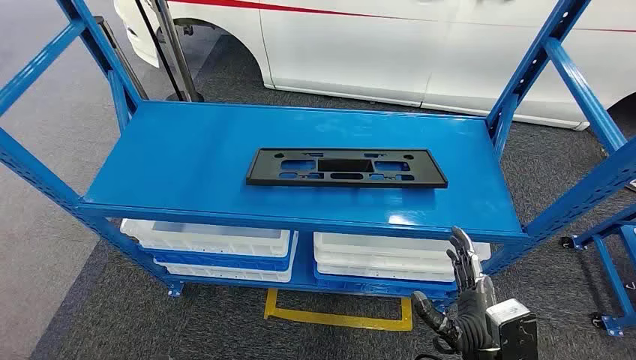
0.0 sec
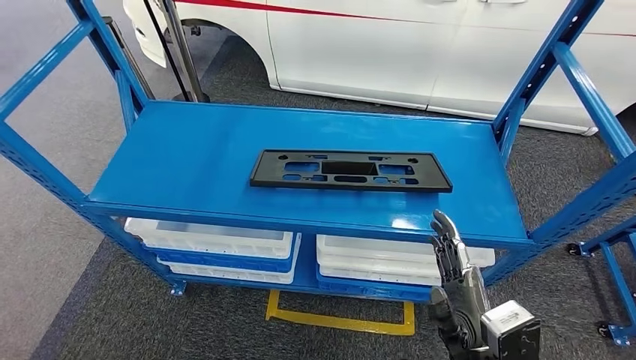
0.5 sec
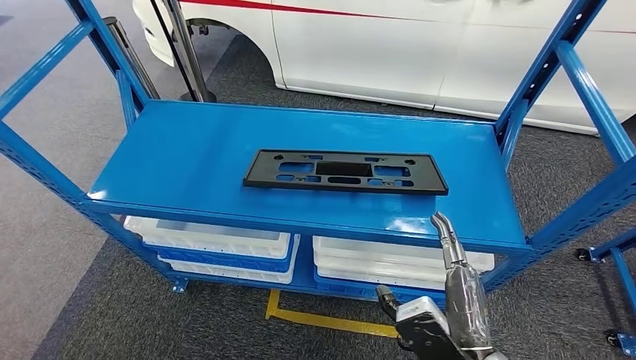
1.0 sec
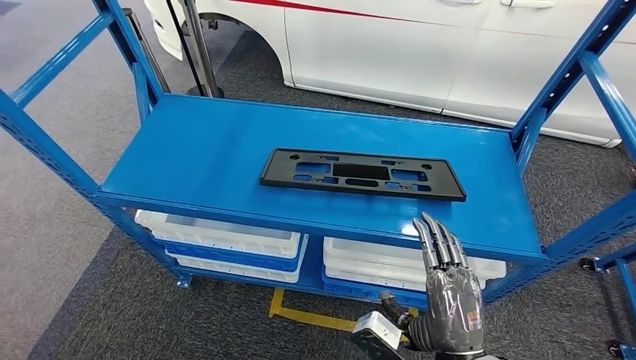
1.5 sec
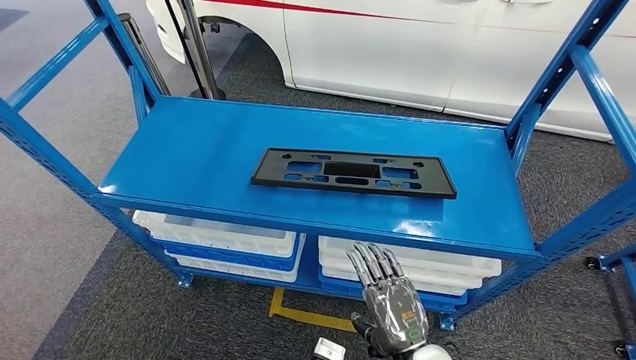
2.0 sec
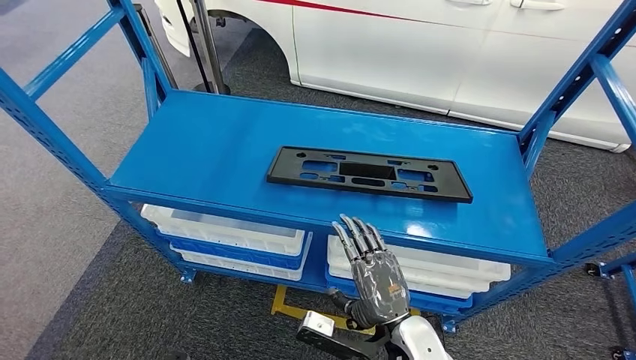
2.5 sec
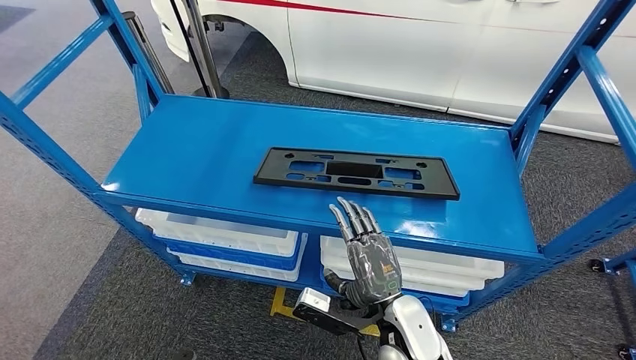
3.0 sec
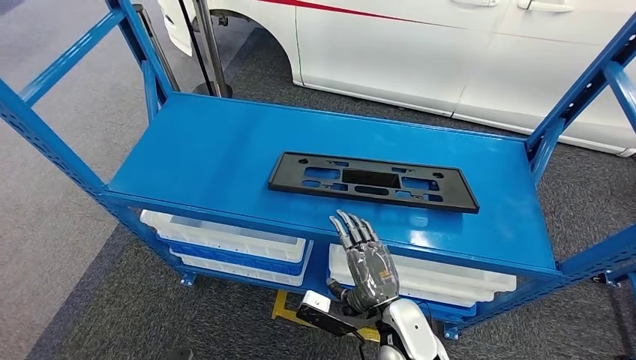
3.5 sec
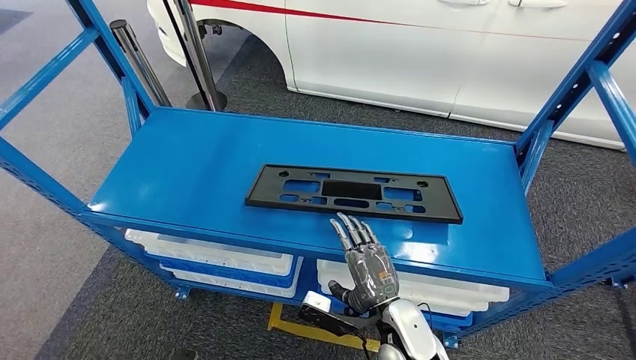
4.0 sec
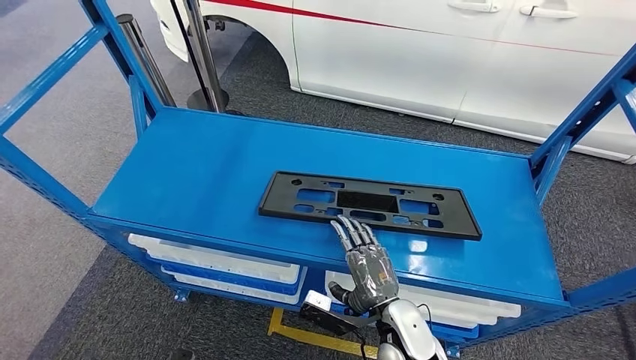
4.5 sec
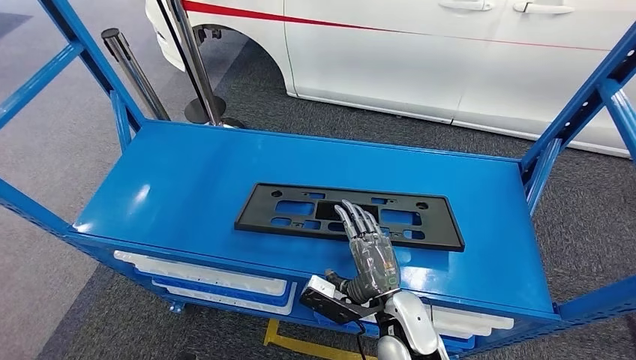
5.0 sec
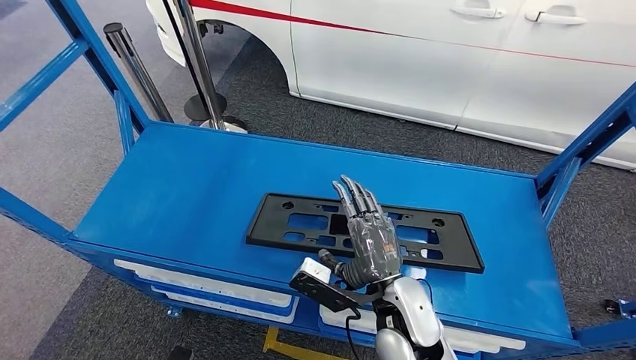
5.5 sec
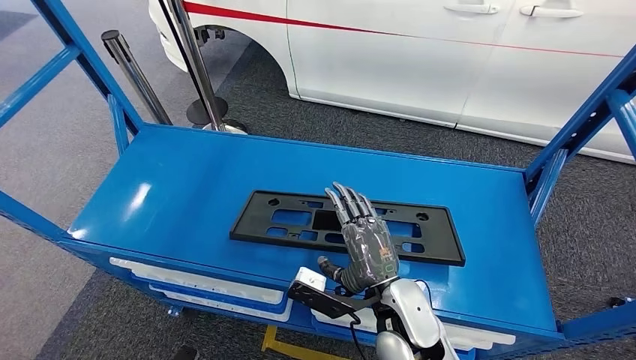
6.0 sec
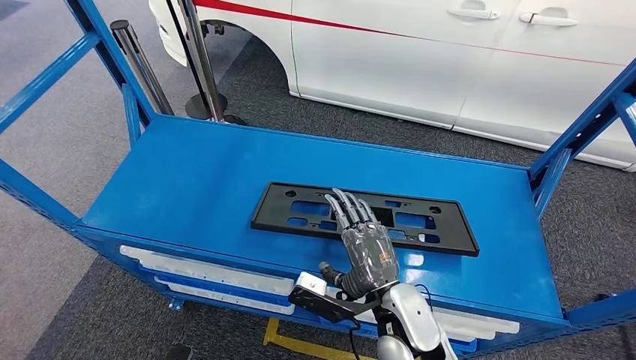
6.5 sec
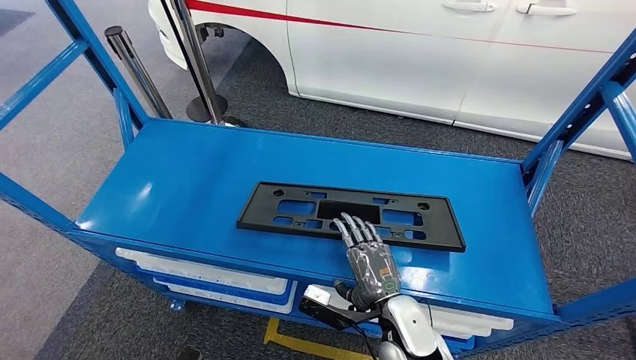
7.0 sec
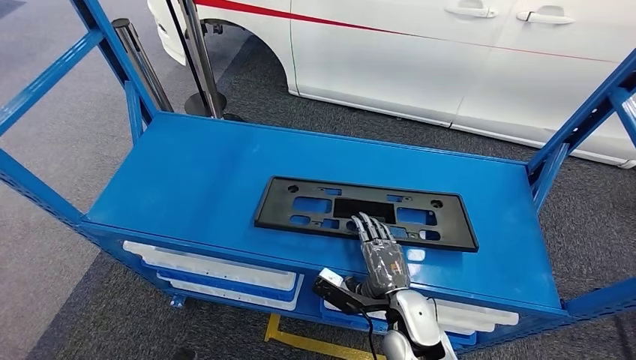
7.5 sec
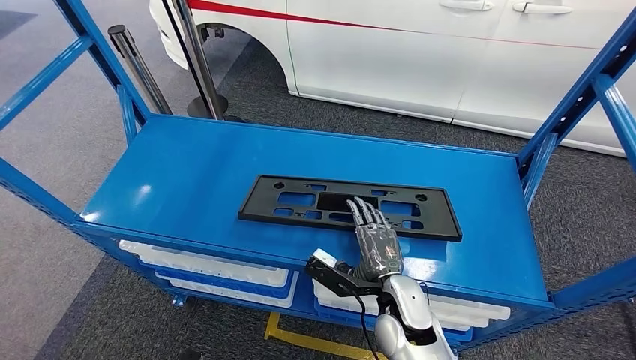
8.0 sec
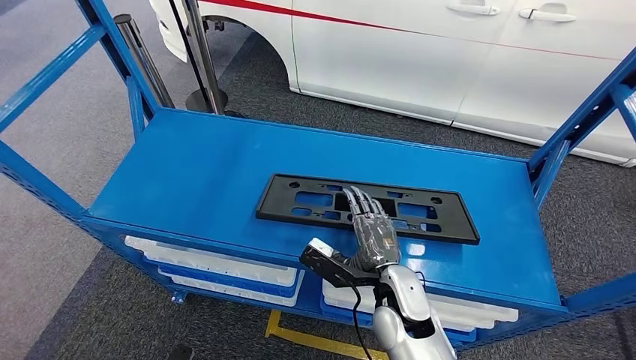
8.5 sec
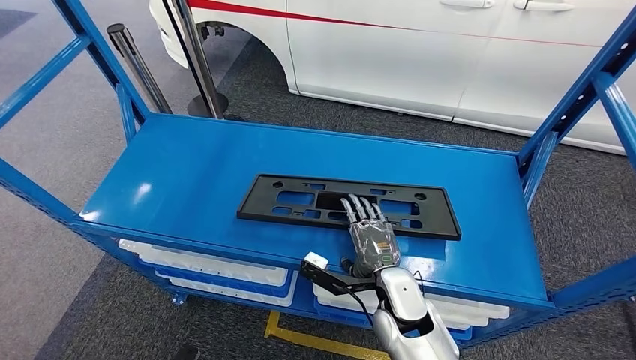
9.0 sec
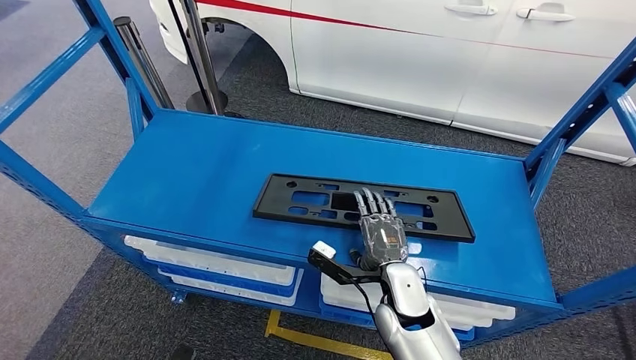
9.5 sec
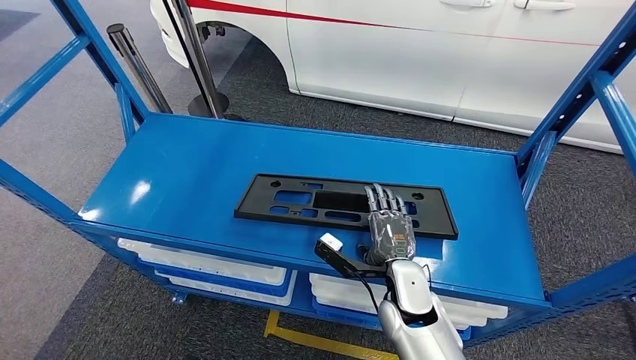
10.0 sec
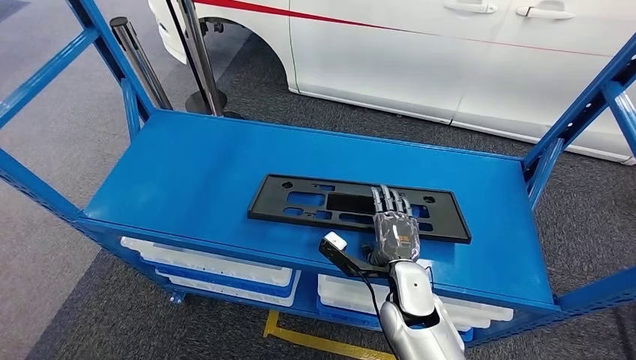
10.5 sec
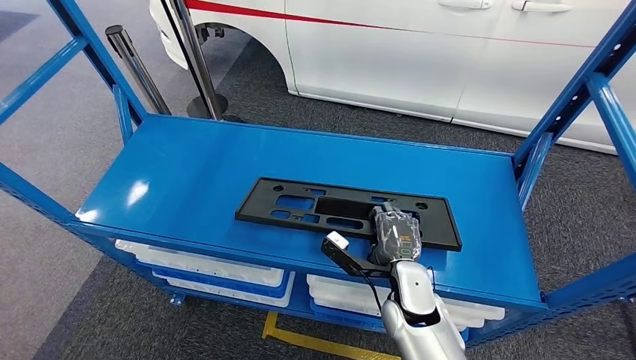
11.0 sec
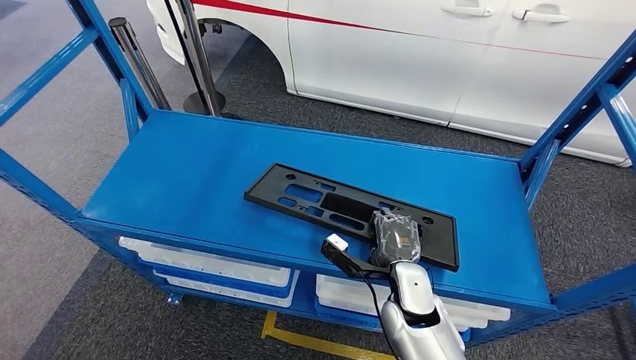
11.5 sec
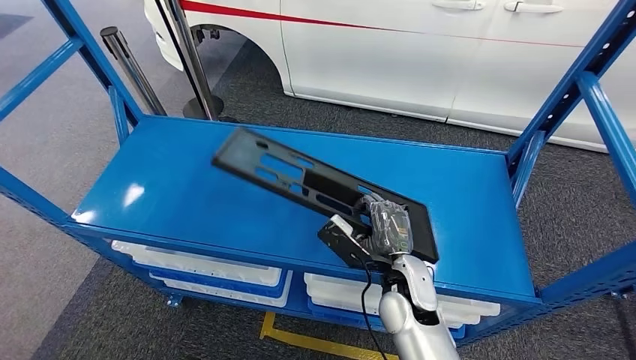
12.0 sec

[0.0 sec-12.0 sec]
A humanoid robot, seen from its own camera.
8.0 sec to 10.0 sec: The hands make only small movements.

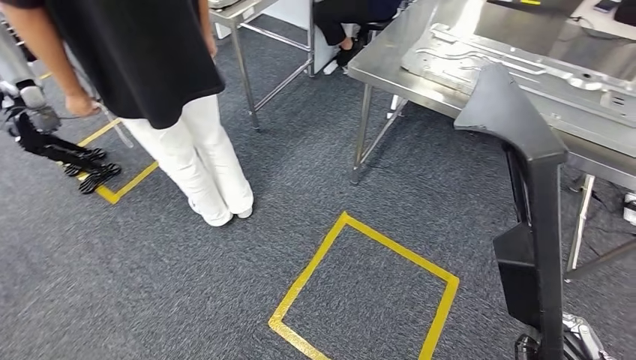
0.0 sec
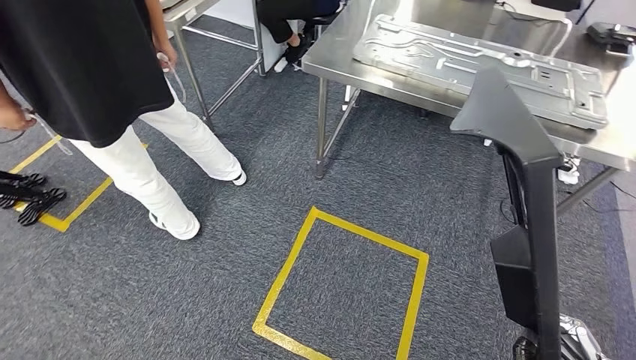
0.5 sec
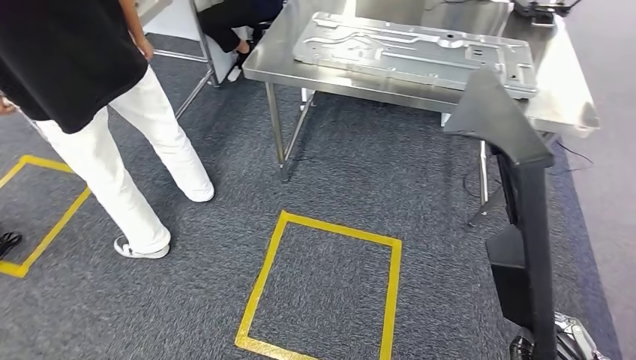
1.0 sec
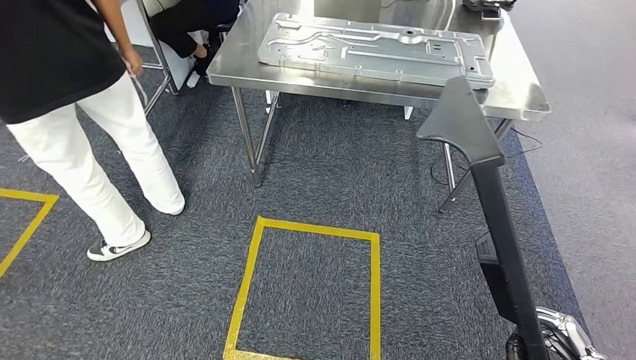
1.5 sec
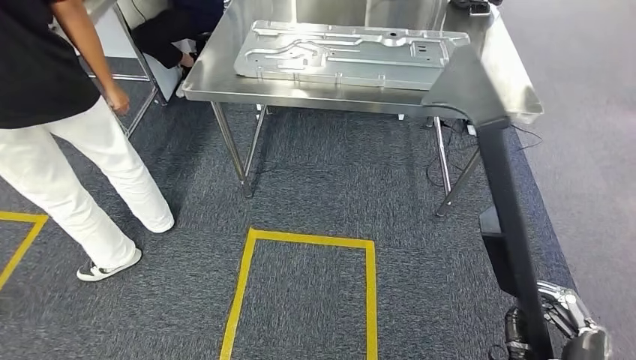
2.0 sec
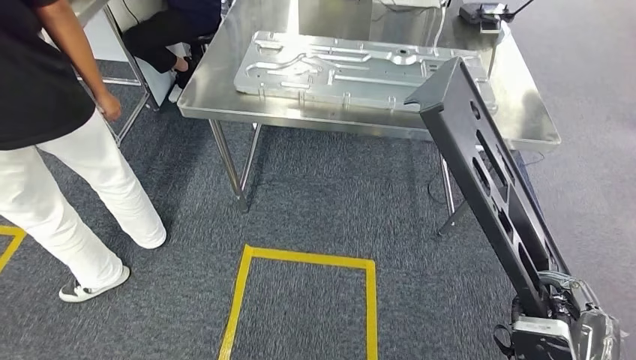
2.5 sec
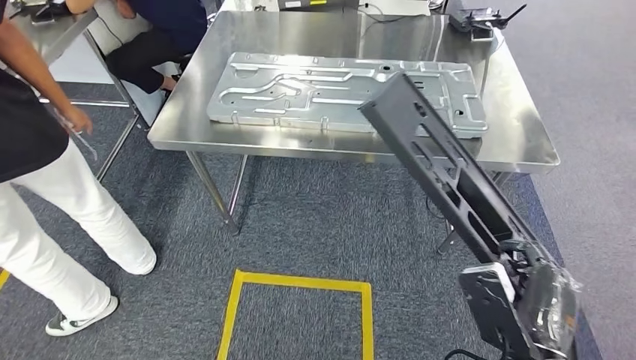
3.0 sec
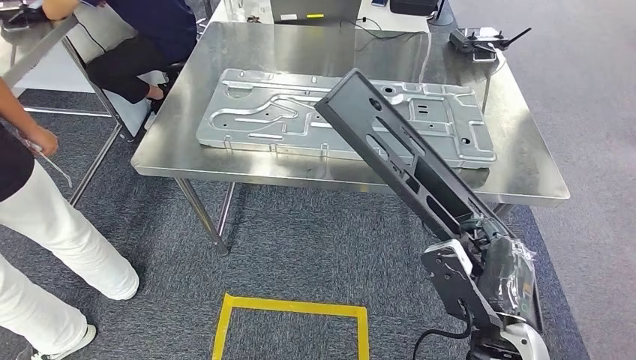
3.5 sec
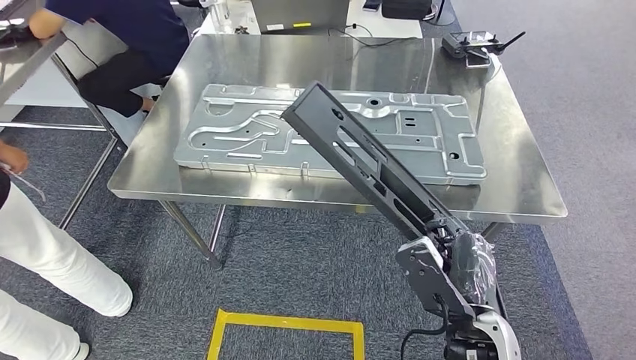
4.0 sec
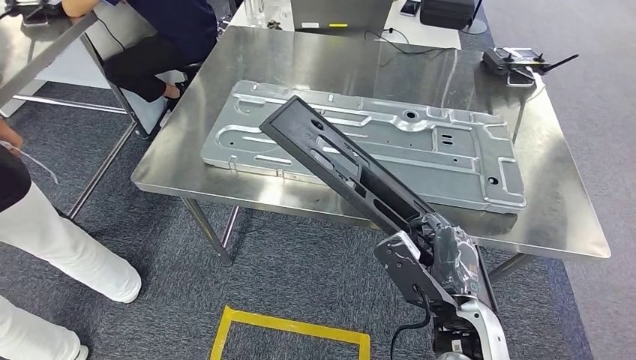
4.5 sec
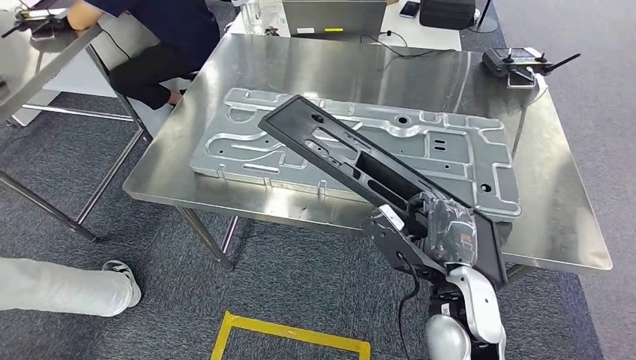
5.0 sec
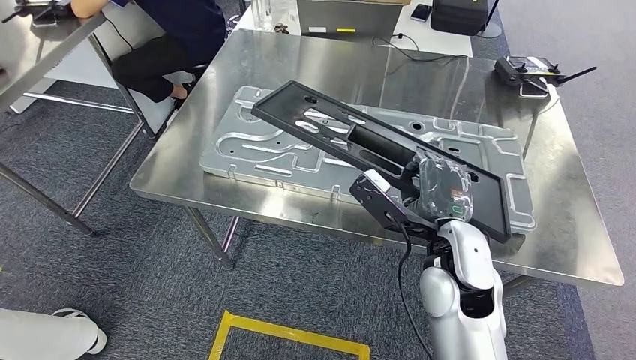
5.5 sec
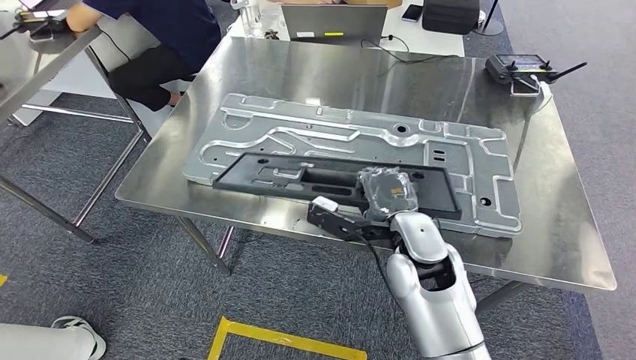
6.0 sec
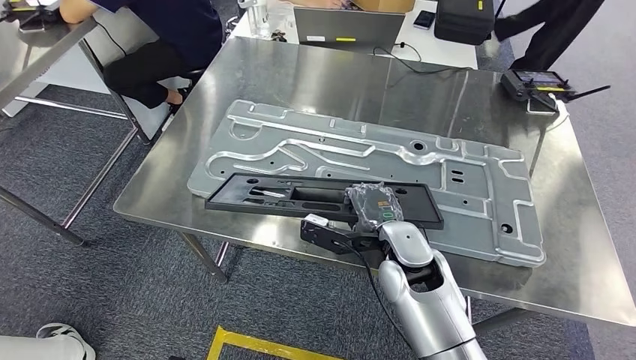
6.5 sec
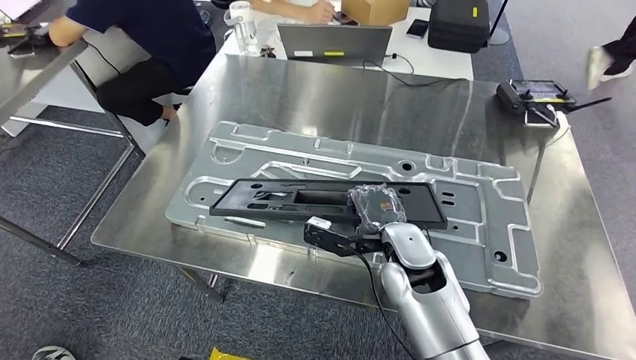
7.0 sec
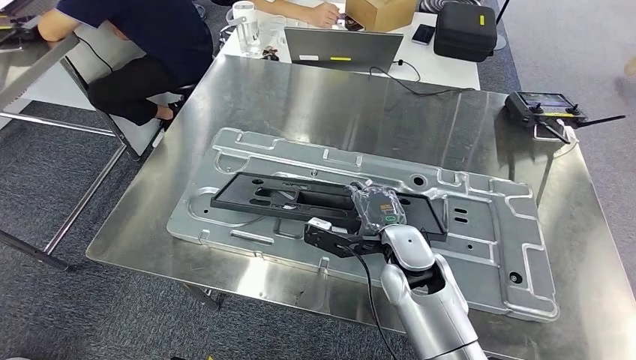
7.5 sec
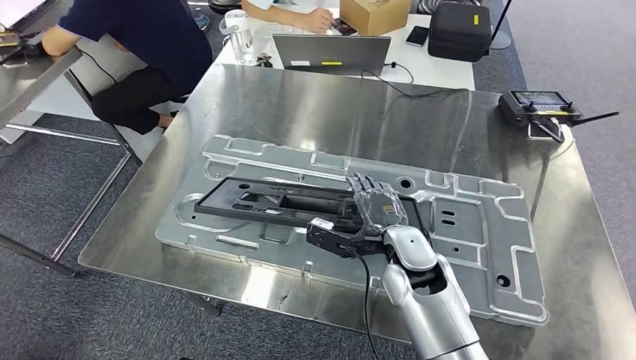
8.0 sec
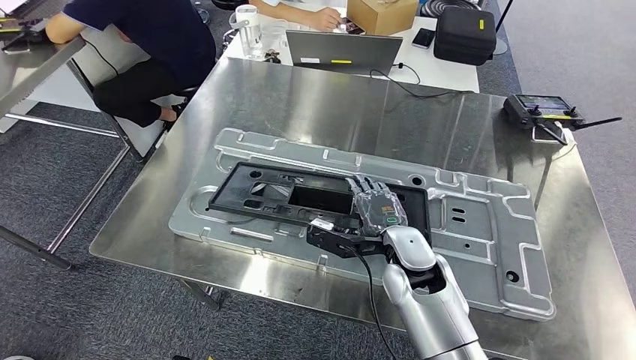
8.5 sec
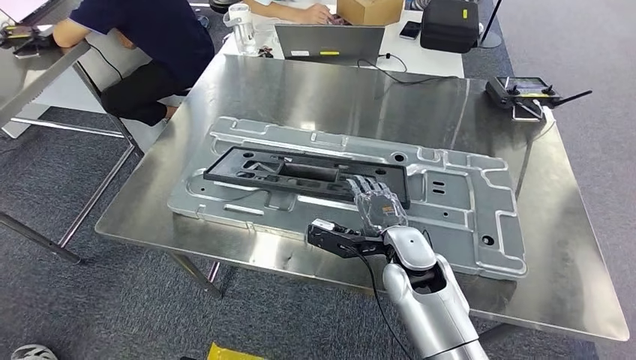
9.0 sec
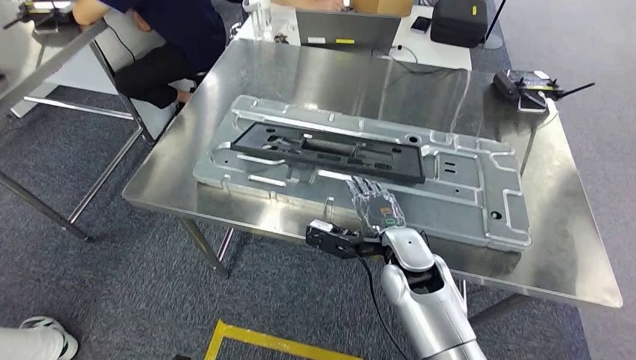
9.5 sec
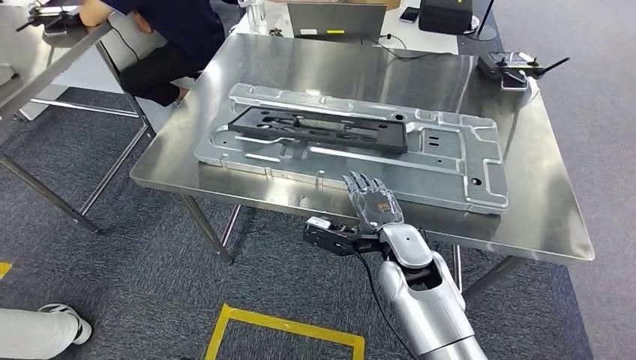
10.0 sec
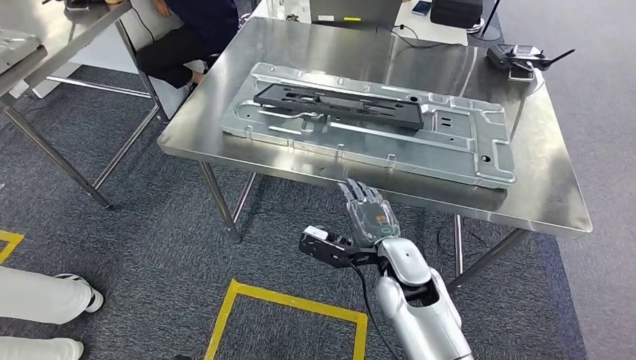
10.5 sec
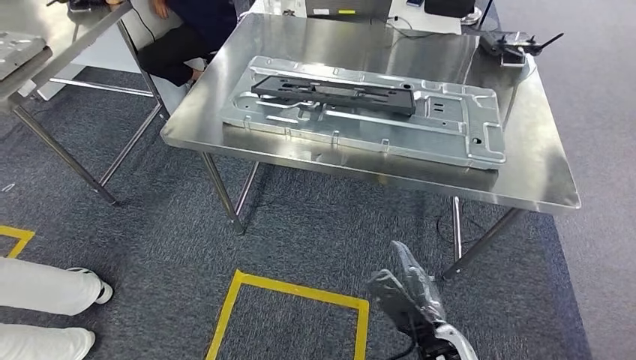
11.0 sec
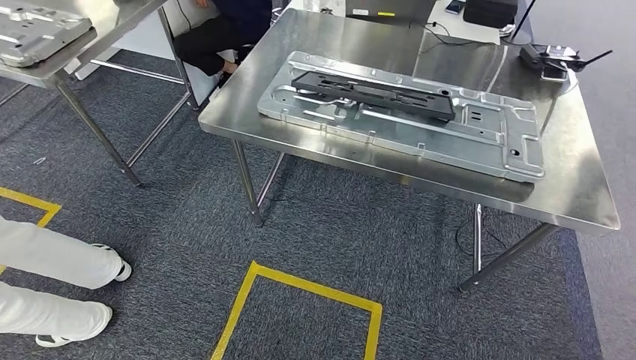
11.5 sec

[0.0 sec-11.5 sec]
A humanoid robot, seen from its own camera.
Step, 0.0 sec to 3.5 sec: Move the large material to the workbench.
Step, 5.5 sec to 10.5 sec: Insert the large material into the corresponding slot on the workbench.
